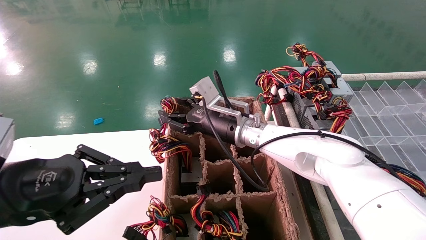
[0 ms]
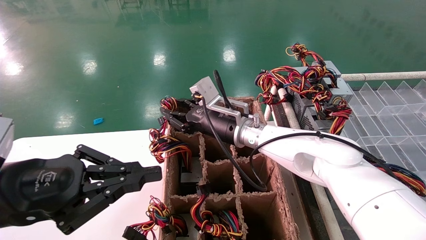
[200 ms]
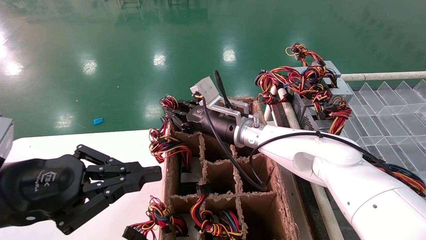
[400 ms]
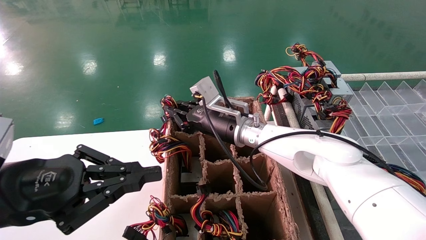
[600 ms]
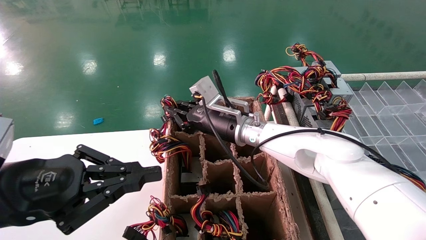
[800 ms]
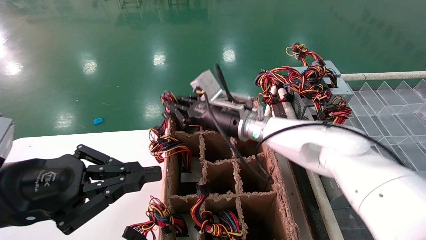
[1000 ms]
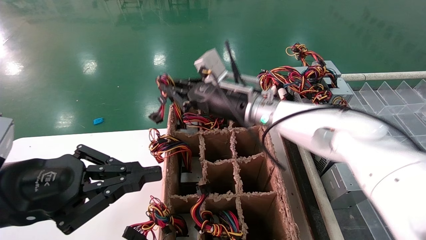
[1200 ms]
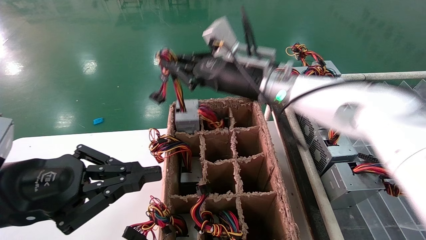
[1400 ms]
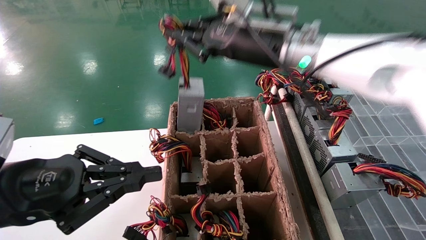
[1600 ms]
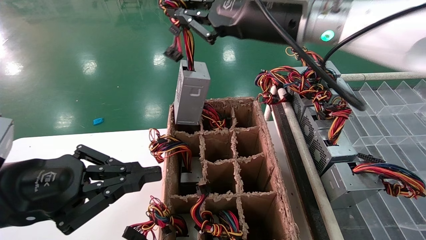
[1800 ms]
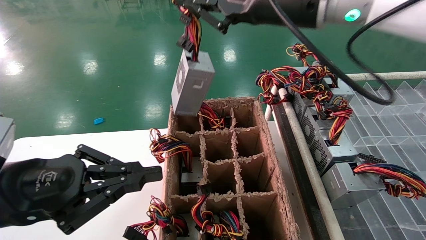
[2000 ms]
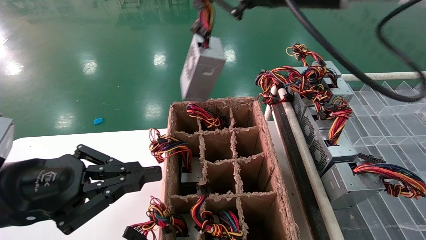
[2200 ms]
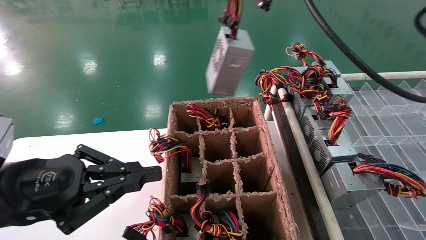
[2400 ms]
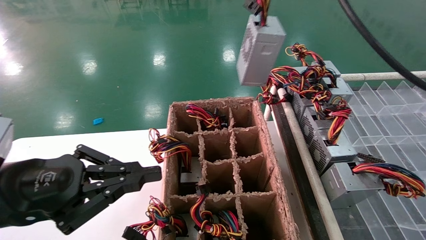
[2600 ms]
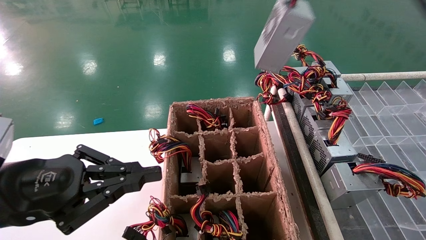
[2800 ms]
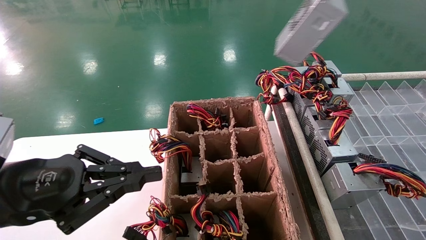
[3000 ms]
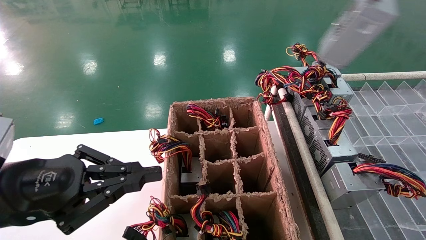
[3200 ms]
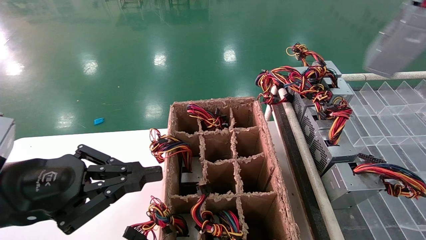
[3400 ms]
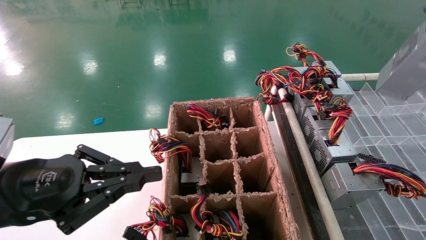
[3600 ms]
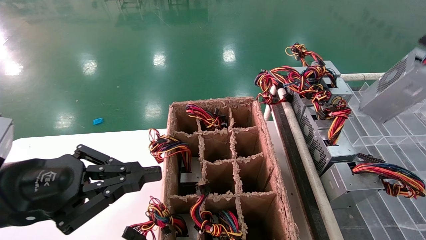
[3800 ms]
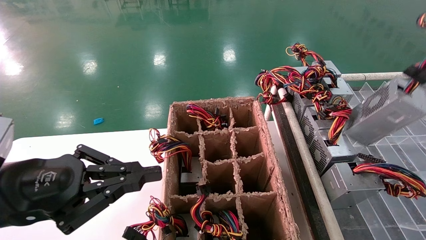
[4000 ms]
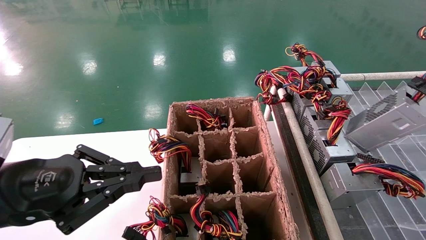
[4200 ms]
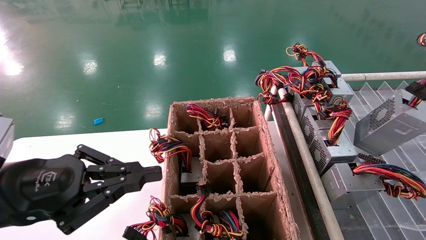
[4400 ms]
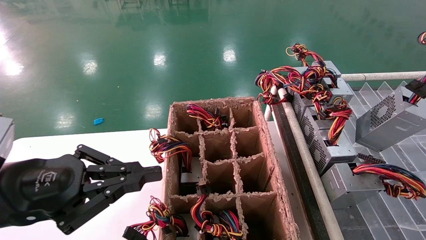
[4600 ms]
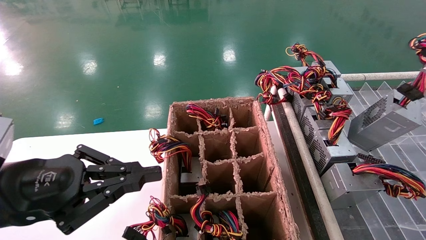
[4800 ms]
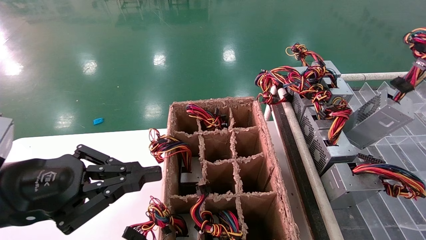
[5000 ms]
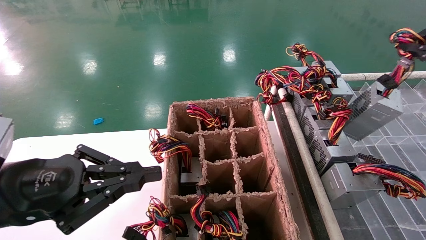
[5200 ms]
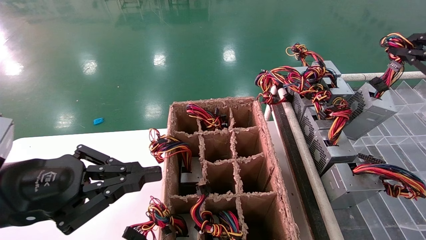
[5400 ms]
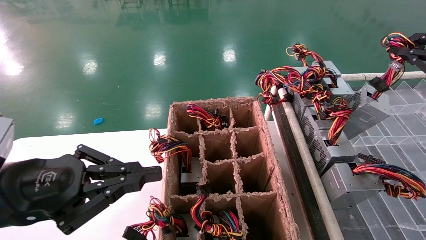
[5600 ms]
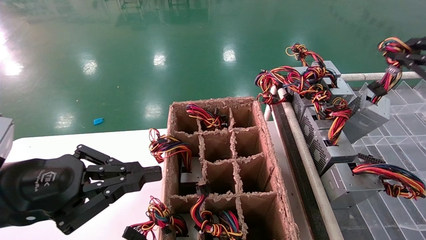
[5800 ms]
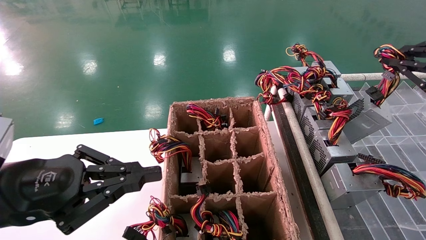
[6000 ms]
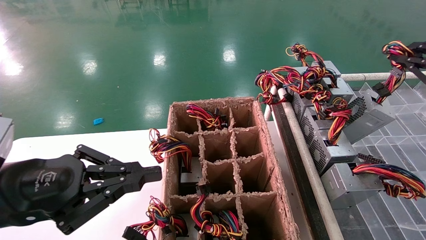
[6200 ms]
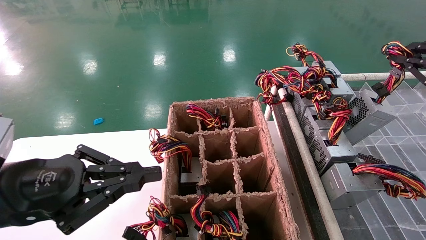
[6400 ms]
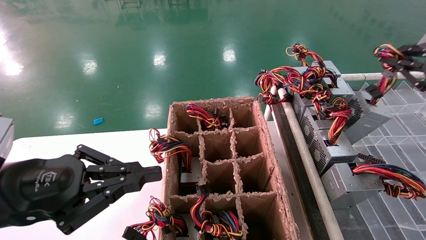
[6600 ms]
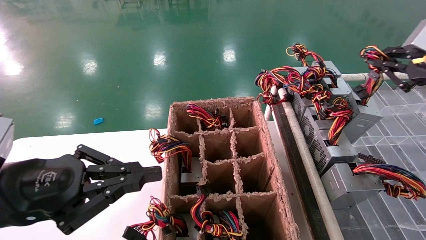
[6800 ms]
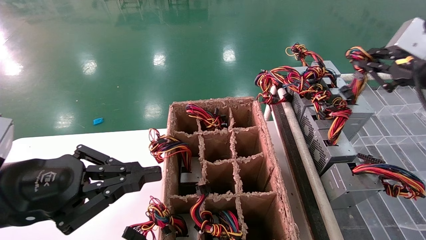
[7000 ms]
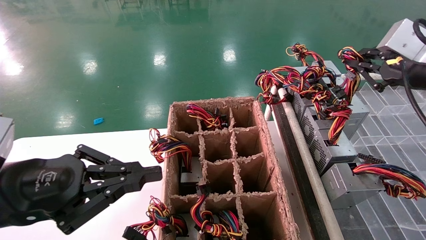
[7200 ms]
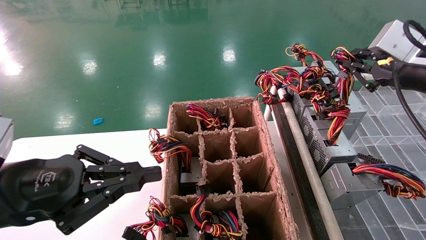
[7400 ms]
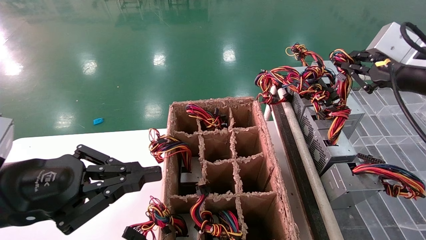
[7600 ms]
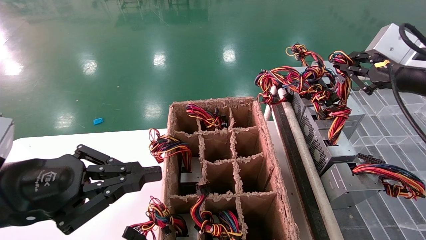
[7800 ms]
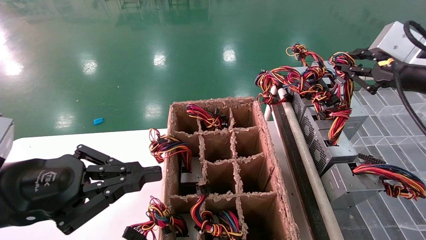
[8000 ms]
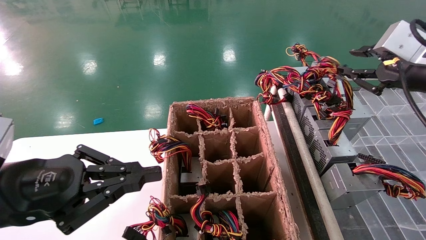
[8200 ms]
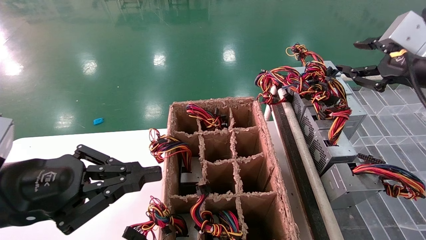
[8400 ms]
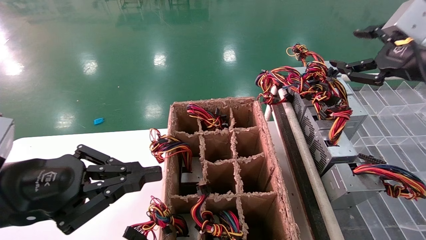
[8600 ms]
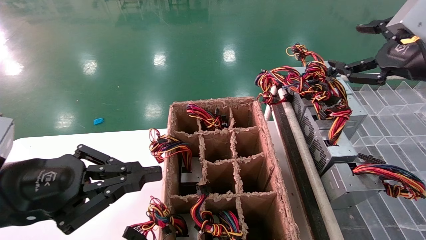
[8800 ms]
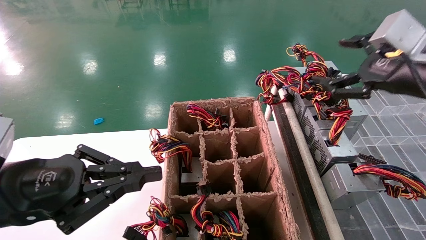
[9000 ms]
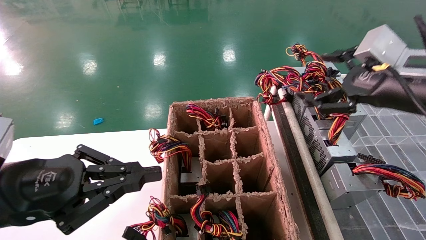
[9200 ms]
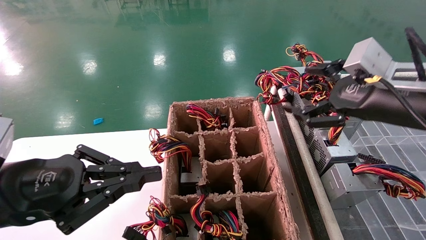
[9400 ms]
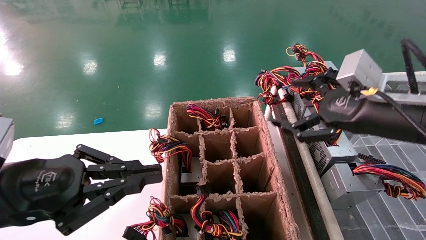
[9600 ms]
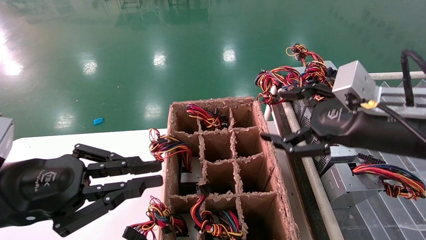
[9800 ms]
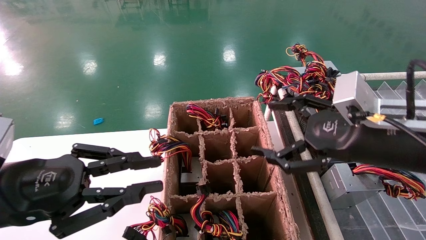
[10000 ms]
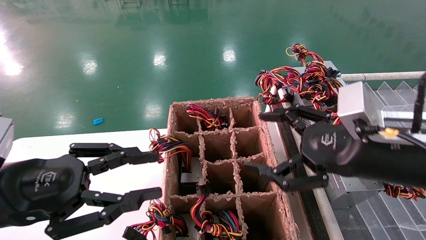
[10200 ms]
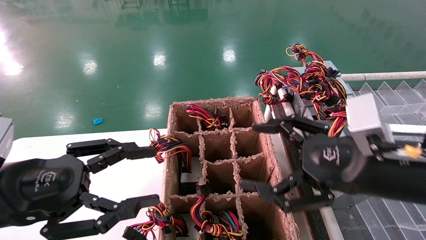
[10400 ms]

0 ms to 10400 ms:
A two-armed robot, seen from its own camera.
Step, 1000 ms to 8400 ms: Place the main unit power supply in the designated area.
0 ms to 1400 ms: The right gripper heads upward, covering about 10 cm, and closes.
1400 ms to 3000 ms: The right gripper is displaced backward, to the right and upward by roughly 35 cm.
3000 ms to 4400 ms: The right gripper heads to the right and downward, covering some 15 cm.
4400 ms to 6000 ms: The right gripper shifts about 10 cm forward.
6000 ms to 7400 ms: The right gripper is displaced to the left and forward by approximately 5 cm.
7400 ms to 9000 ms: The right gripper opens.
9000 ms to 10400 ms: The right gripper goes roughly 15 cm downward, to the left and backward. The left gripper opens its fingers.

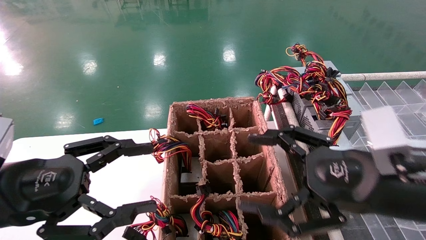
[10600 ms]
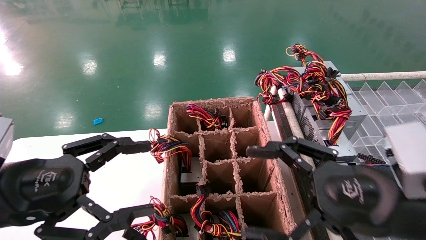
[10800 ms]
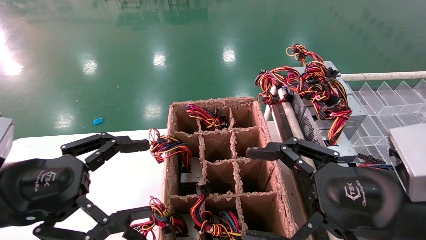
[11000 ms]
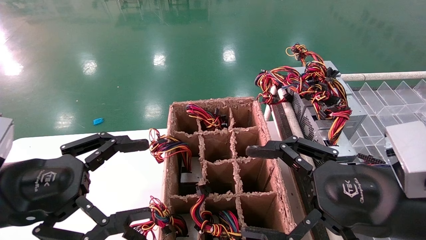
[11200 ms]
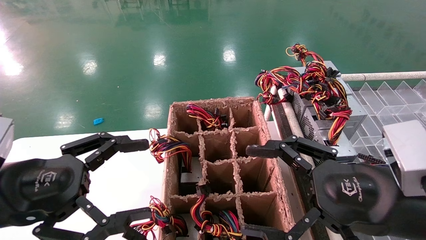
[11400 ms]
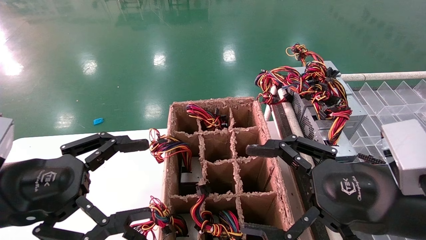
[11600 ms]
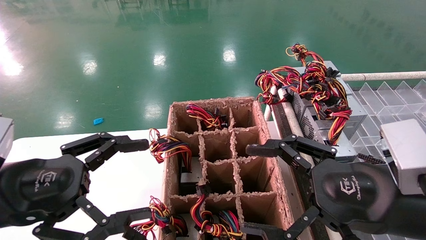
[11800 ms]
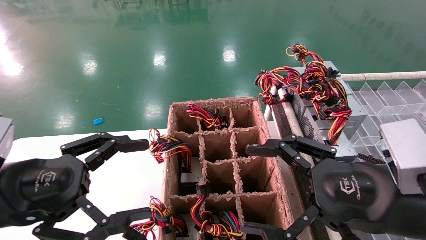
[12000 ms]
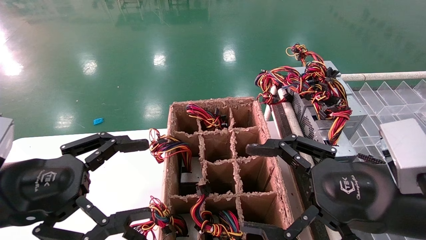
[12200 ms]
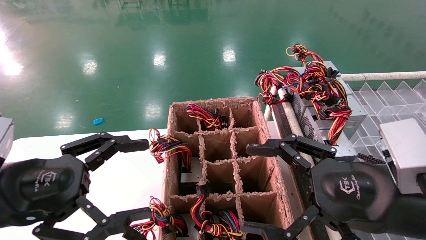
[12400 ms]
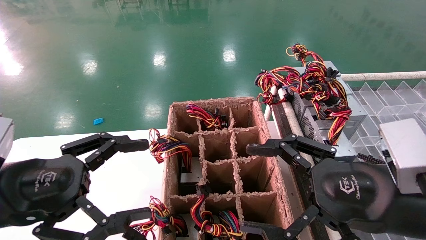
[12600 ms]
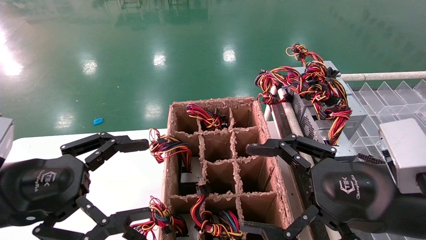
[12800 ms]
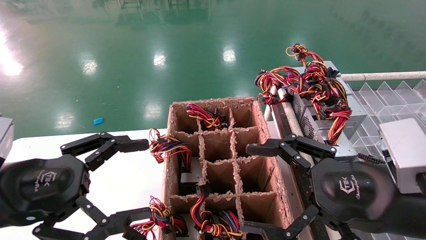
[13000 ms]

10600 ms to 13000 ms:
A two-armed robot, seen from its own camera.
10600 ms to 11800 ms: The left gripper opens its fingers.
11800 ms to 13000 ms: Both grippers stay about where they are.

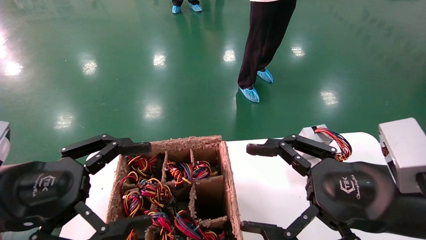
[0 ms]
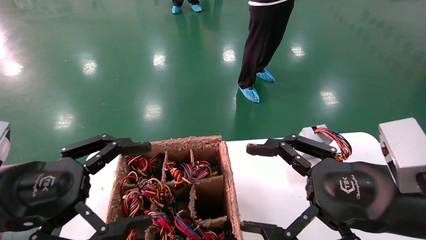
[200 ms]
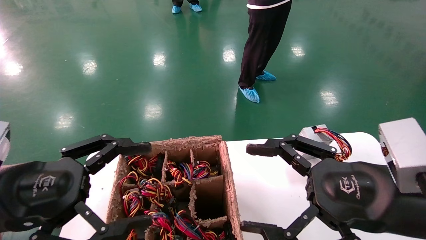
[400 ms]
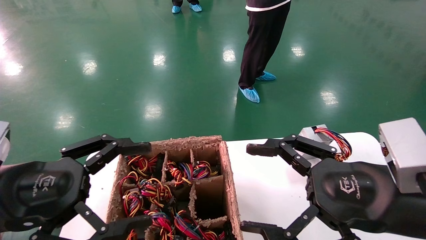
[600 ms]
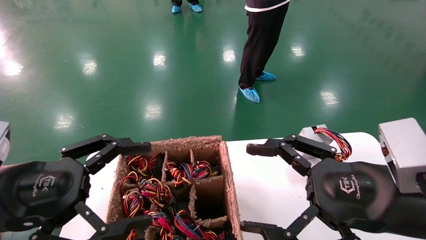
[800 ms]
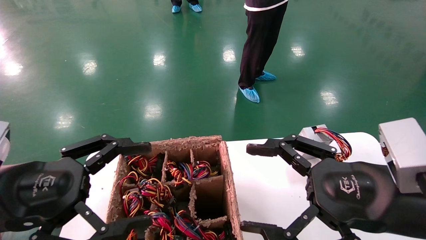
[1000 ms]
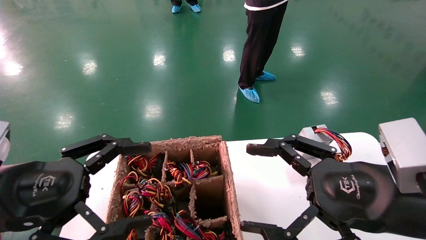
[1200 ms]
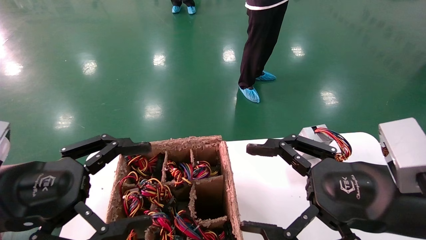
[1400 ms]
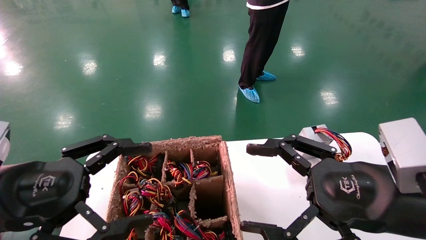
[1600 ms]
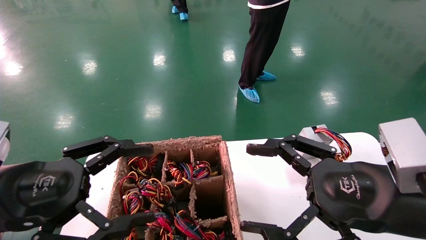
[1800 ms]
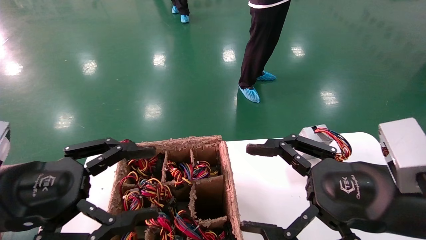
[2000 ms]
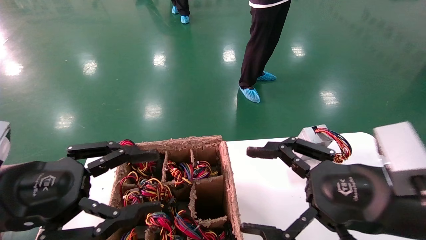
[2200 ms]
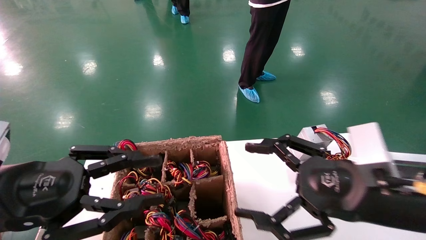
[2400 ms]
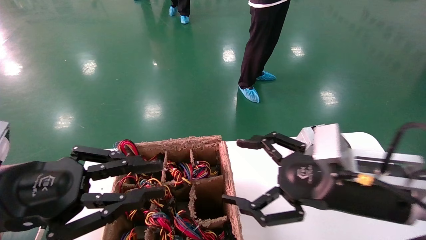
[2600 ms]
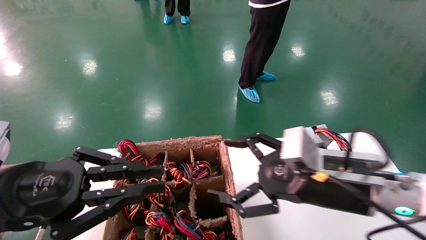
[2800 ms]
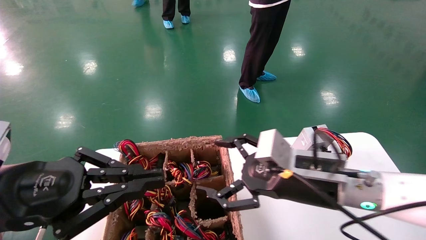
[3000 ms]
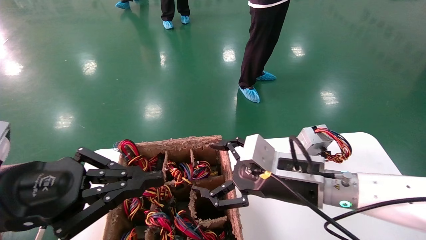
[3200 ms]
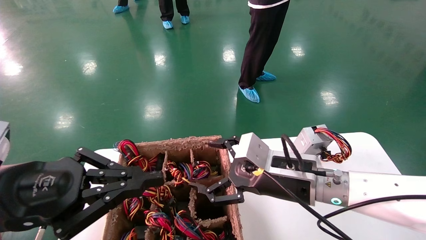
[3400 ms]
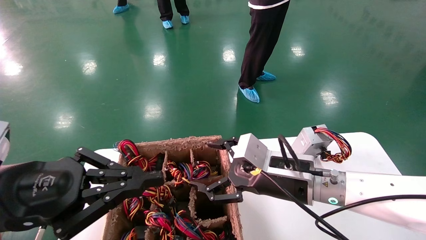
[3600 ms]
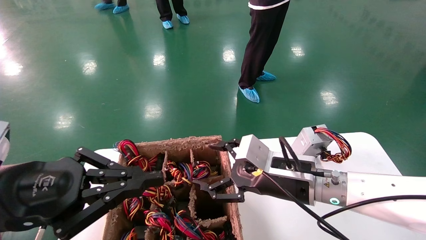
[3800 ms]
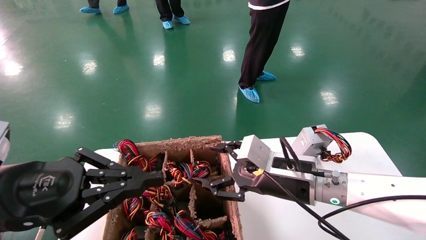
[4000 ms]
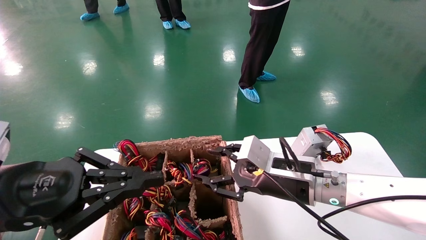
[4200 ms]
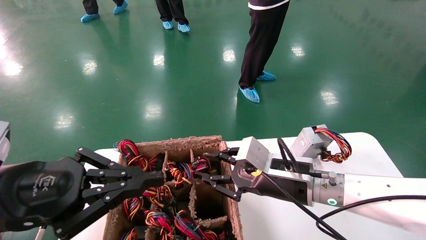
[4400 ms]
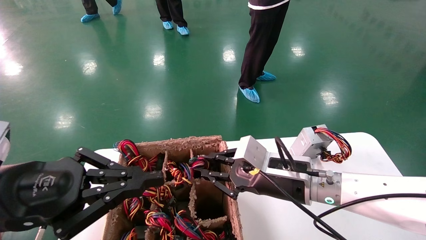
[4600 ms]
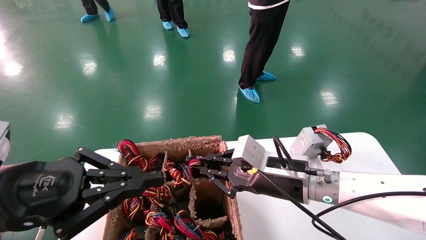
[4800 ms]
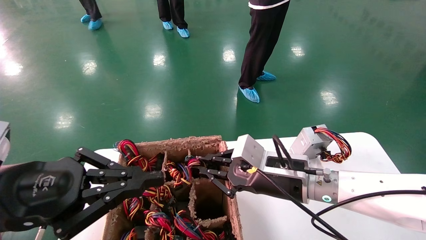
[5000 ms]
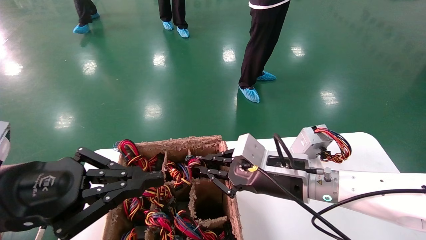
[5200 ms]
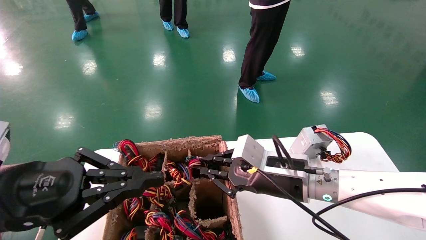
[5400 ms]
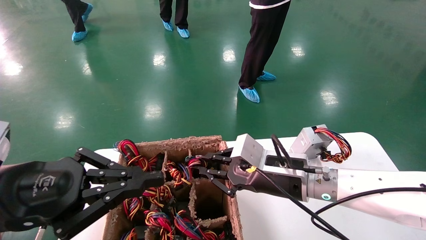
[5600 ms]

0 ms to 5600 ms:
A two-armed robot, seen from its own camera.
Step, 2400 ms to 4800 ms: Grab the main unit power supply from the containment box.
0 ms to 1400 ms: Both grippers stay about where they are.
1400 ms to 2800 ms: The left gripper closes its fingers. Meanwhile the right gripper shifts approximately 10 cm forward.
2800 ms to 4200 ms: The right gripper moves forward, approximately 5 cm, and closes.
4200 ms to 5600 ms: The right gripper closes its fingers.
